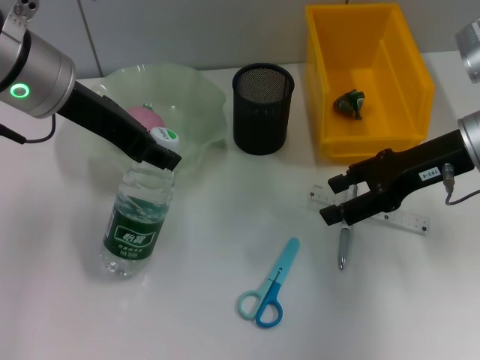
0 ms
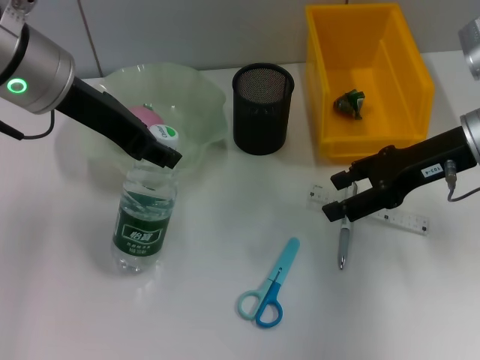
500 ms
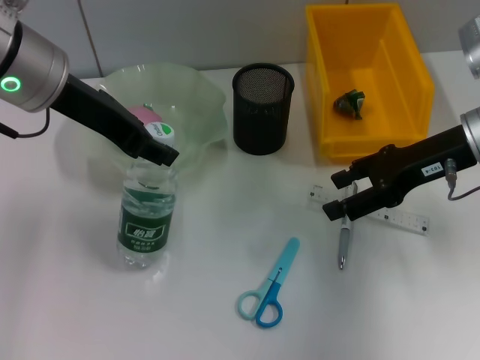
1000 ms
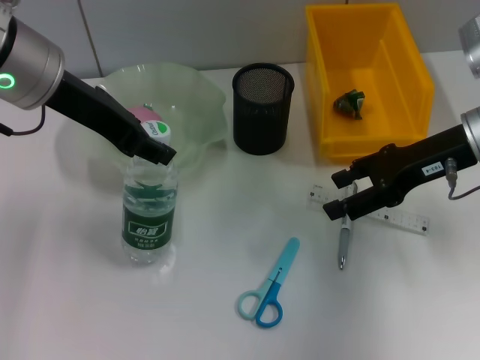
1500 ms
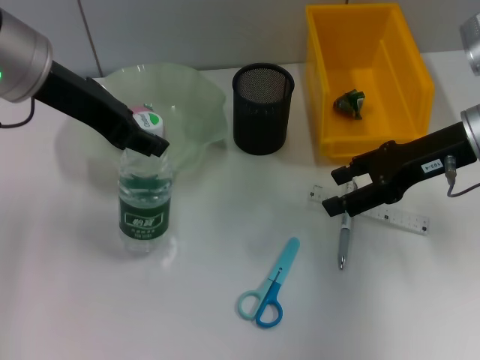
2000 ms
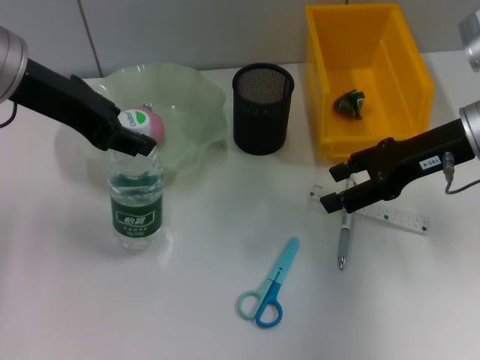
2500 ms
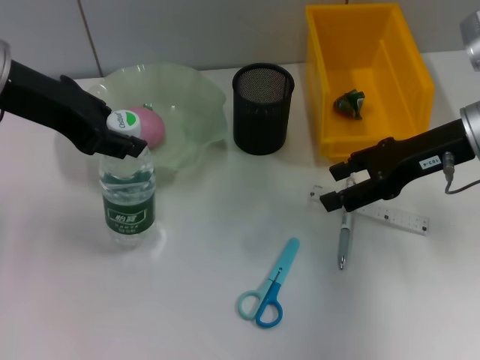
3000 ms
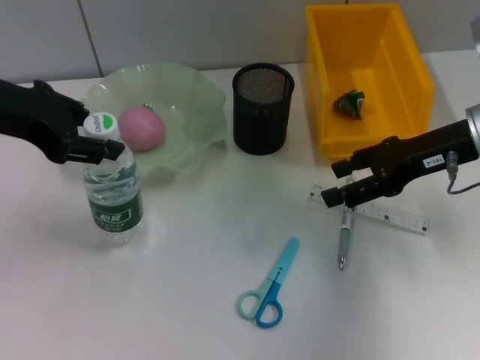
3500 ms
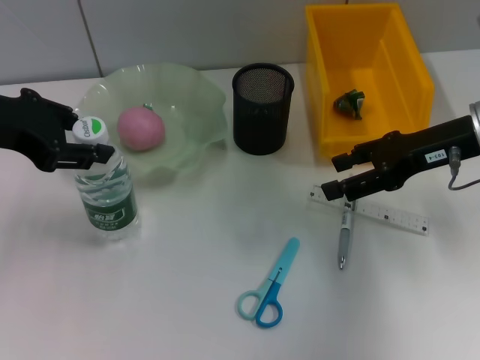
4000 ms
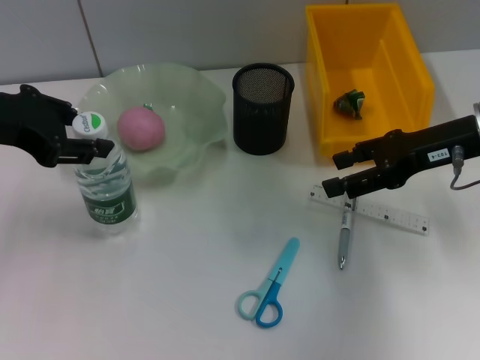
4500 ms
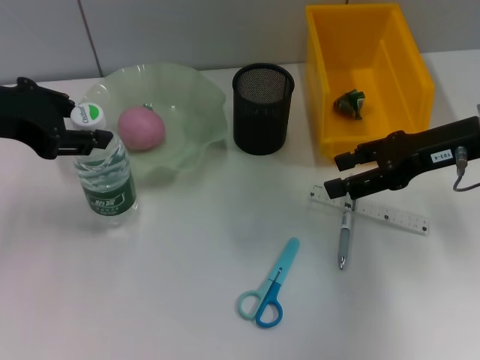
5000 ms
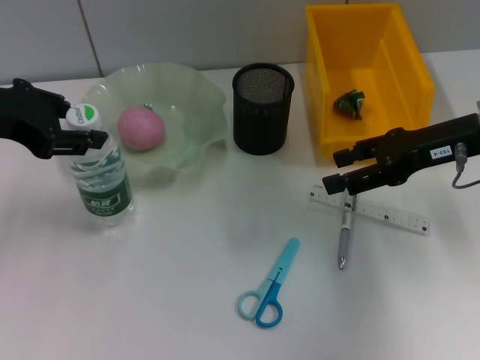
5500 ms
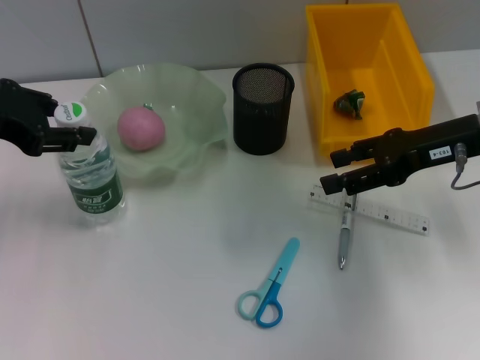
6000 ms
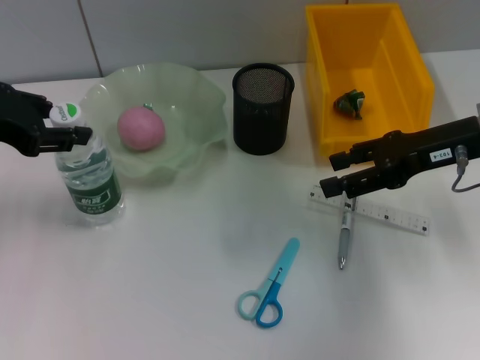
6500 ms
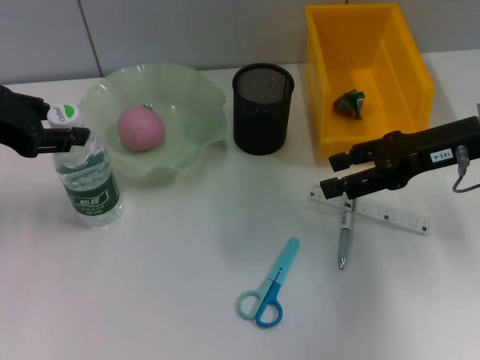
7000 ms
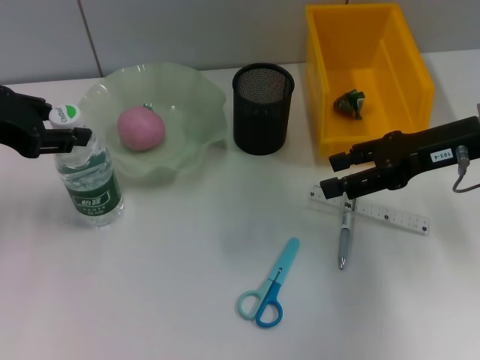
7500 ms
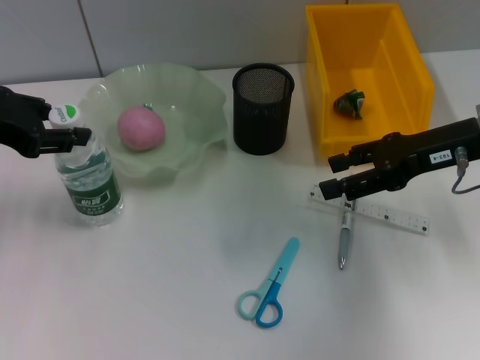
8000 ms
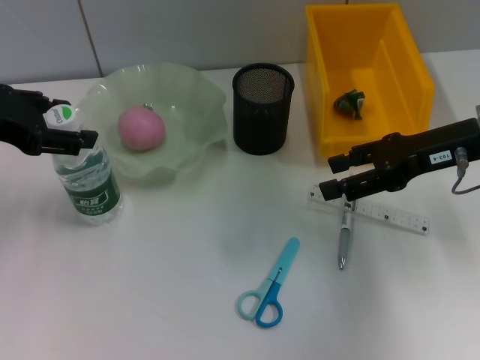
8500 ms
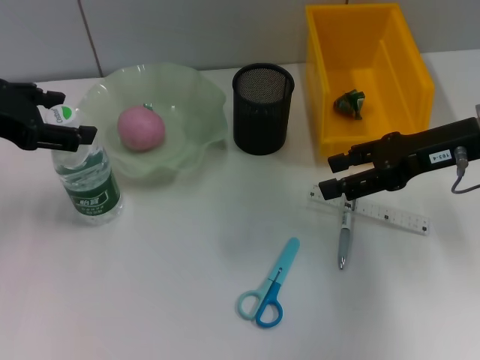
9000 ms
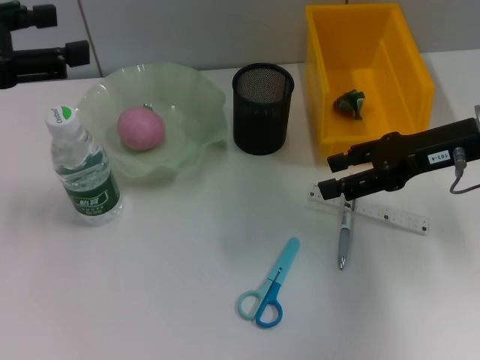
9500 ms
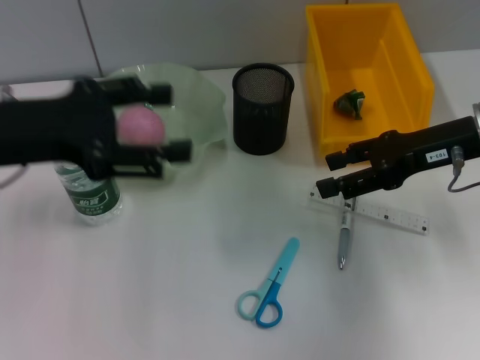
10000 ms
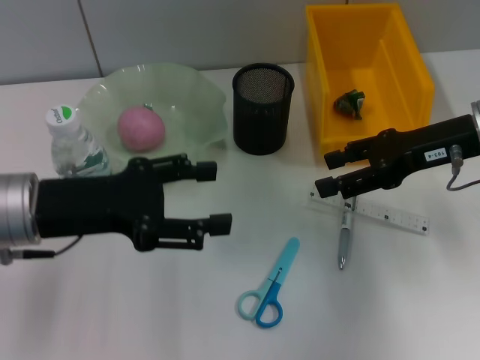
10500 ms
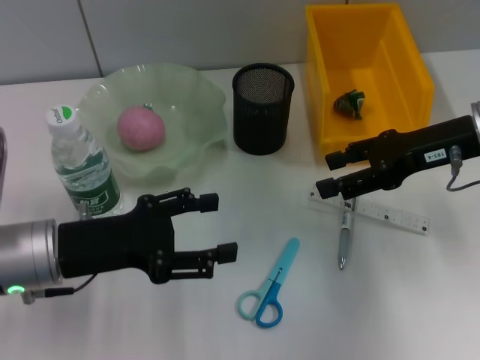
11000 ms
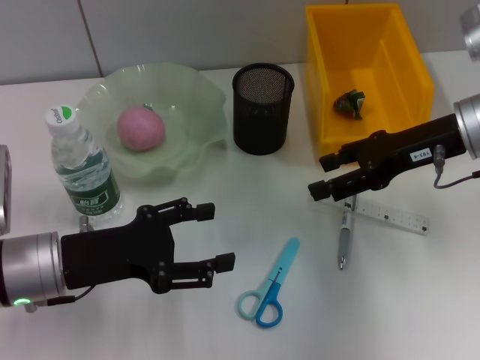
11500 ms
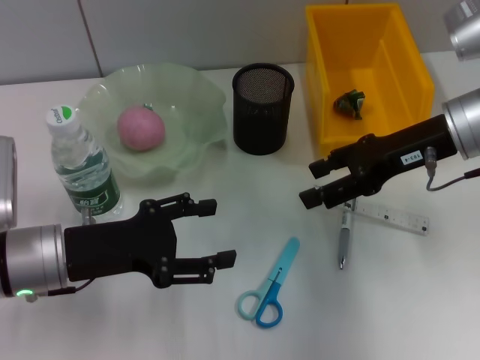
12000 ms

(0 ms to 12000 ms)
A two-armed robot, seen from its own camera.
Step, 0 ms - 8500 ms: Place the water bottle on the table with the left hand.
0 ms - 2000 ms: The grippers move only a little.
2000 ms - 4000 ms: The left gripper shifts roughly 10 cm to the left.
4000 ms - 6000 ms: There are only small adjustments of the grippers.
6000 ms - 8000 ms: The two grippers keep their place.
8000 ms - 10000 ms: The left gripper shifts by approximately 5 cm, and opens up.
10000 ms - 12000 ms: The left gripper travels downward by some 15 cm.

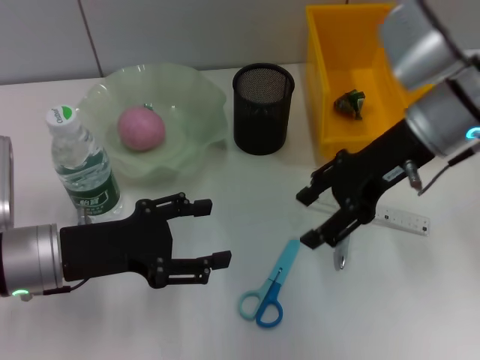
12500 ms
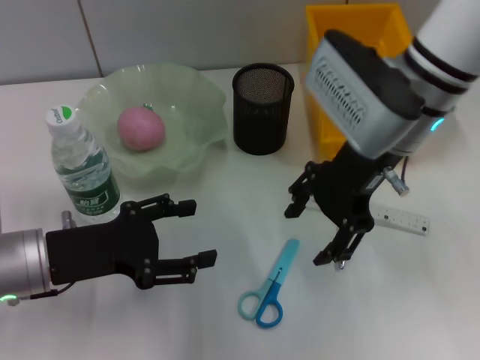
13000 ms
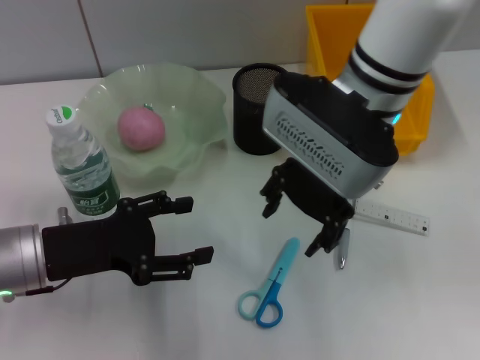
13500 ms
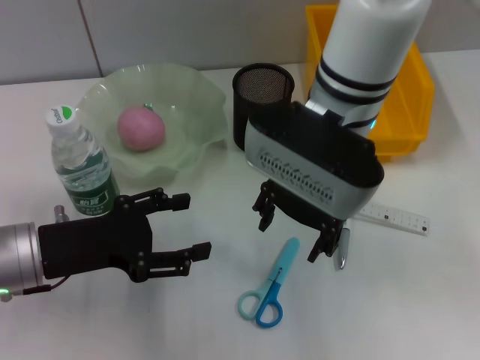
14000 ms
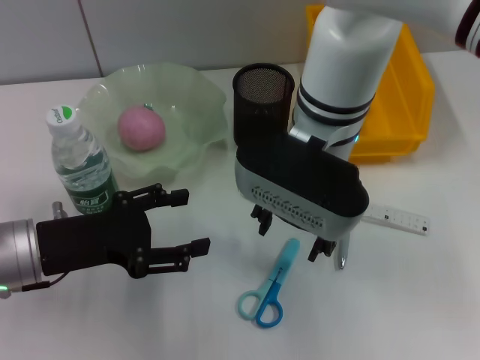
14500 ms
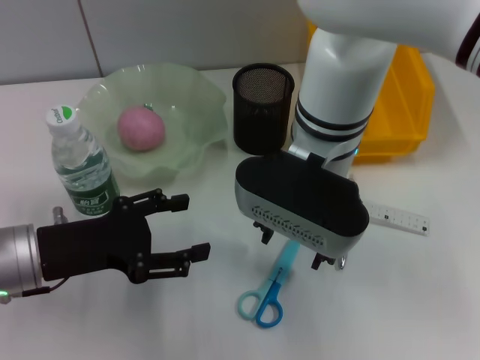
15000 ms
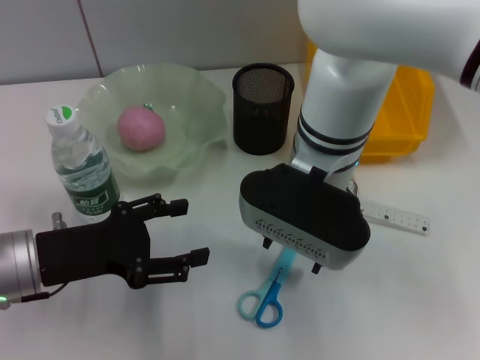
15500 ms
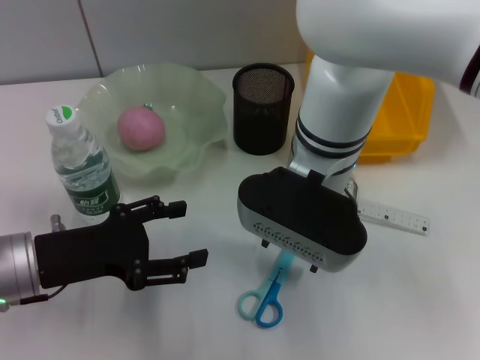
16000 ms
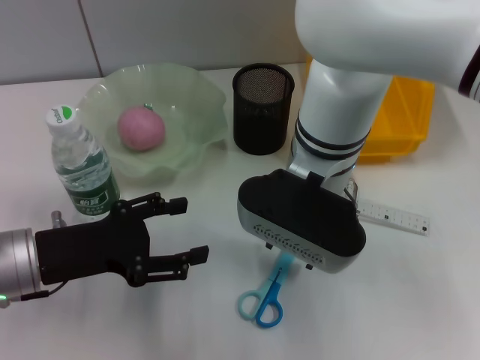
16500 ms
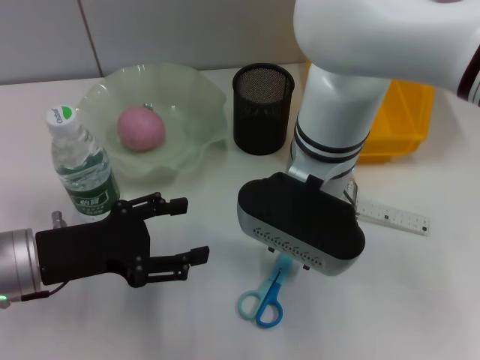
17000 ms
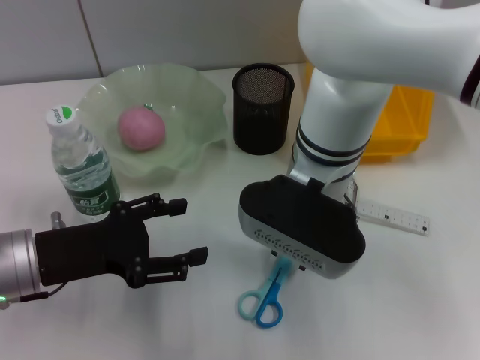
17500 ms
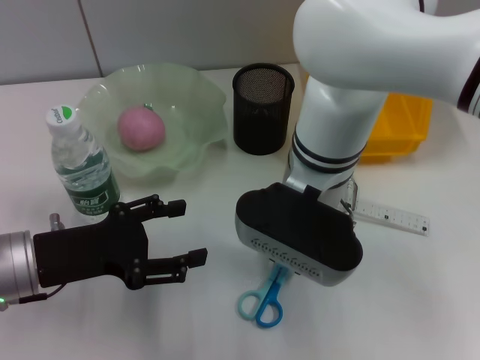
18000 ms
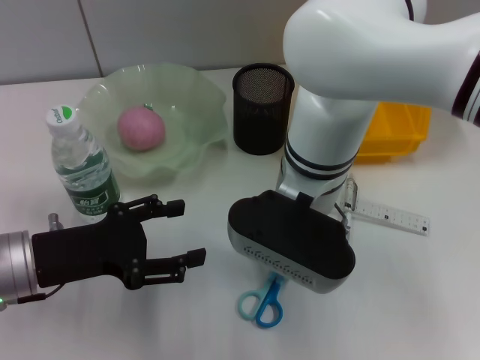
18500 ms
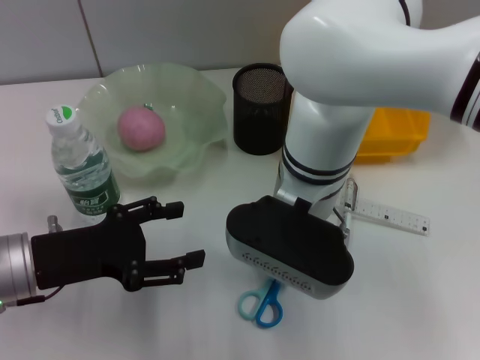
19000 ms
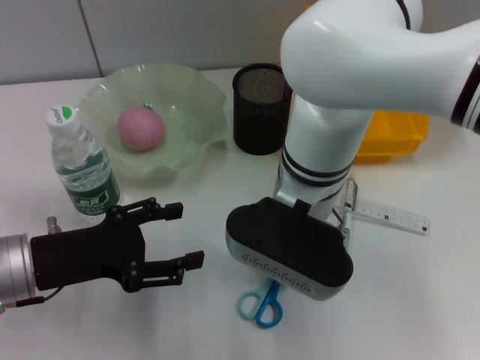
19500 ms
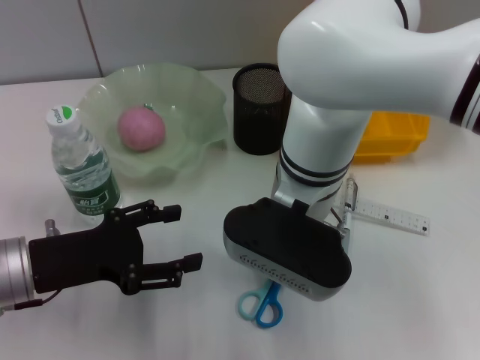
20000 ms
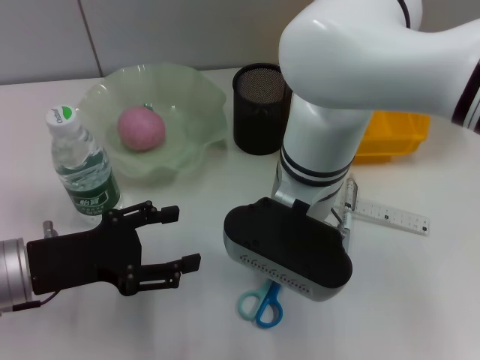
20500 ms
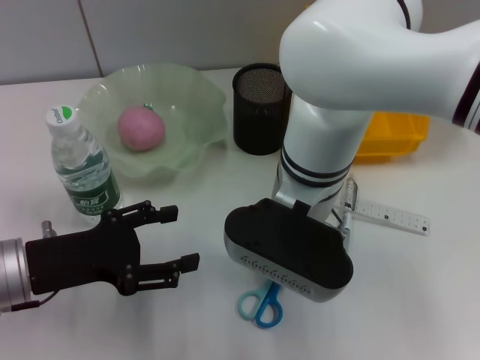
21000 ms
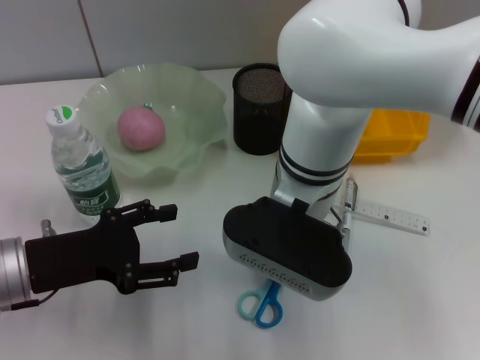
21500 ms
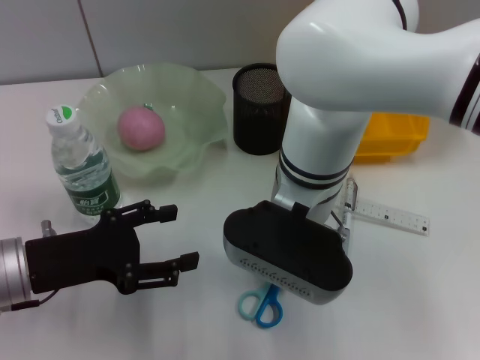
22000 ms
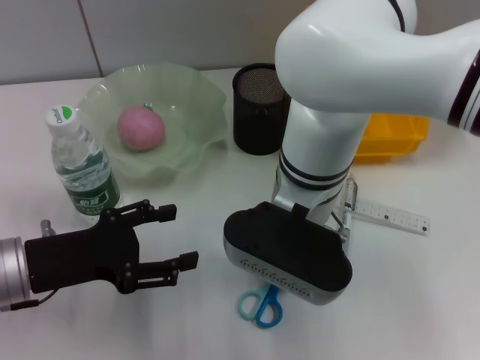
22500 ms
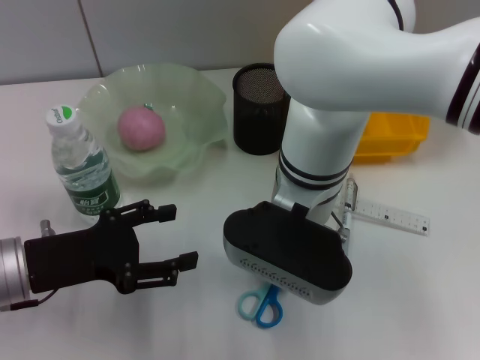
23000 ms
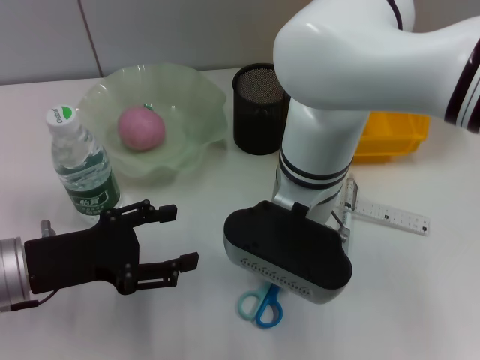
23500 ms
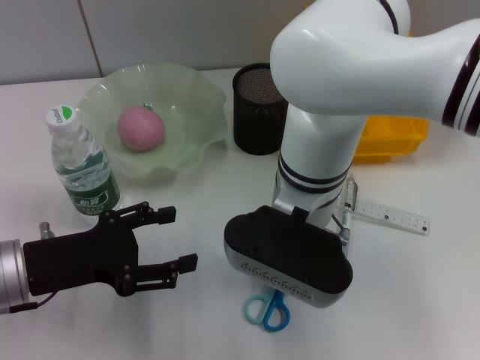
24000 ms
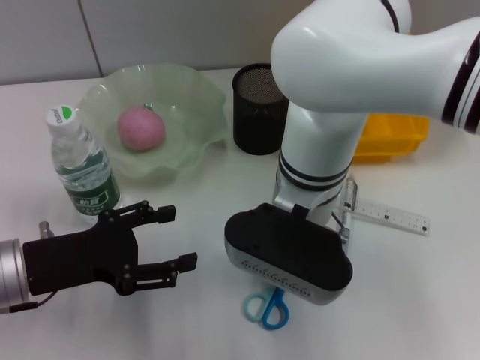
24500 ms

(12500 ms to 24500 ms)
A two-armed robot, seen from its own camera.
Step, 12500 ms - 19500 ms: Grab the blue scissors with the right hand.
12500 ms - 14500 ms: The right gripper travels to the left by some 15 cm.
14500 ms - 16500 ms: The grippers make only small movements.
16500 ms - 18500 ms: The right gripper closes.
18500 ms - 24500 ms: The two grippers keep their place.

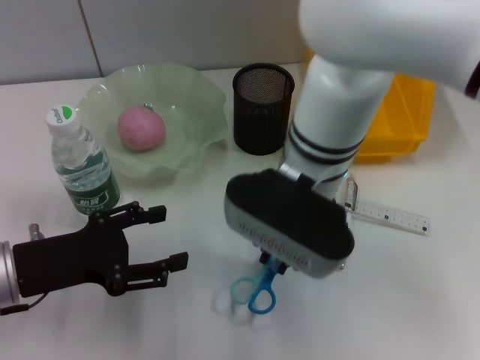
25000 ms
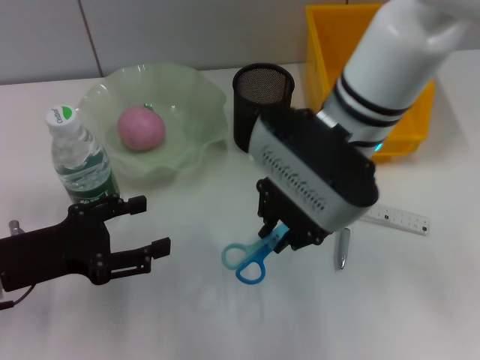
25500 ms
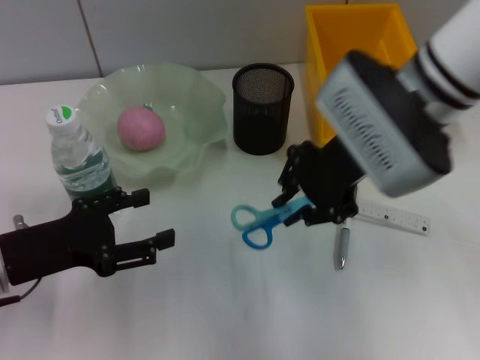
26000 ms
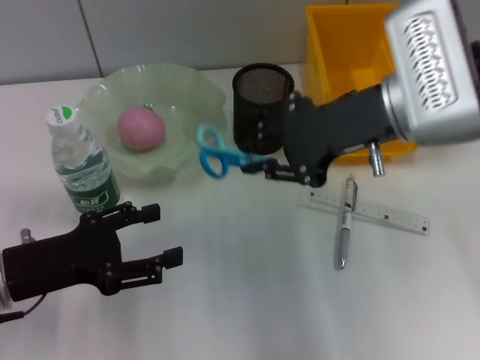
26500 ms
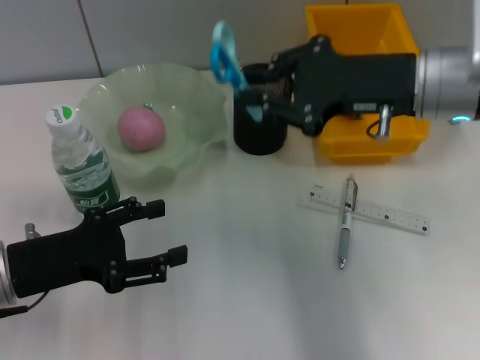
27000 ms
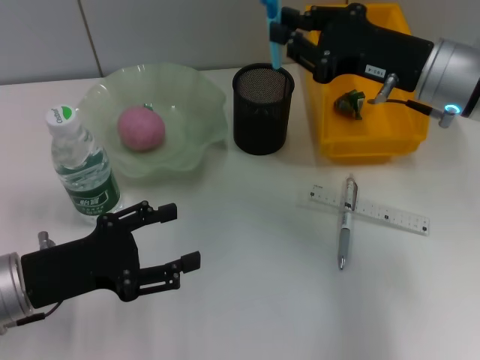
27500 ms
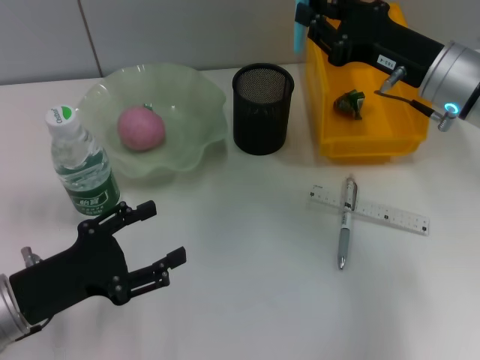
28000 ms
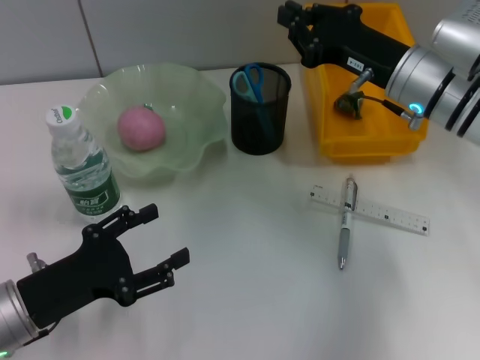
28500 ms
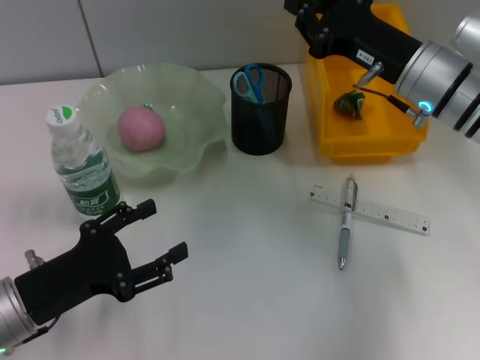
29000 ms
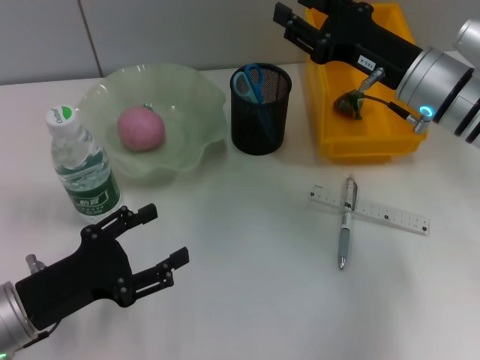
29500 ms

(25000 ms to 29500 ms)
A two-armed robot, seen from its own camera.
Step, 25000 ms - 28500 ms: Place the blue scissors into the pen holder with the right hand.
25000 ms - 27000 ms: The right gripper heads to the right, covering approximately 15 cm.
27000 ms - 29500 ms: The left gripper ends up about 5 cm from where it was. Meanwhile the right gripper moves downward, some 5 cm, and opens its fingers.
